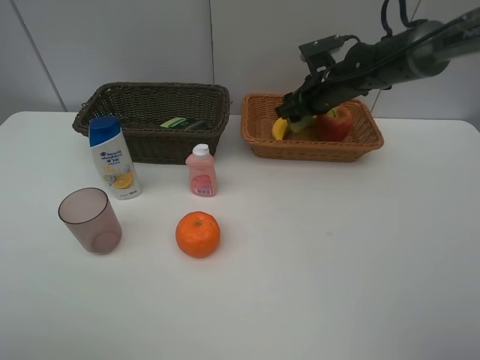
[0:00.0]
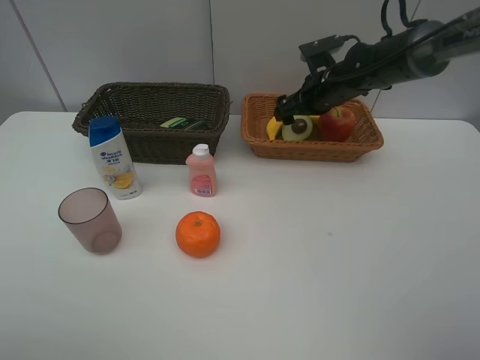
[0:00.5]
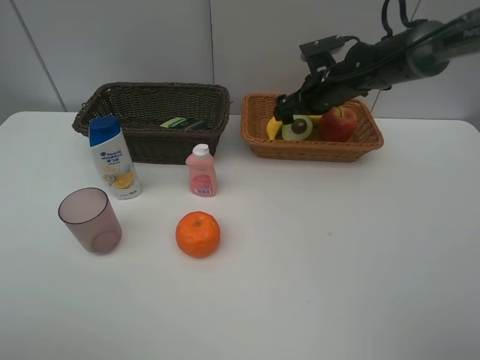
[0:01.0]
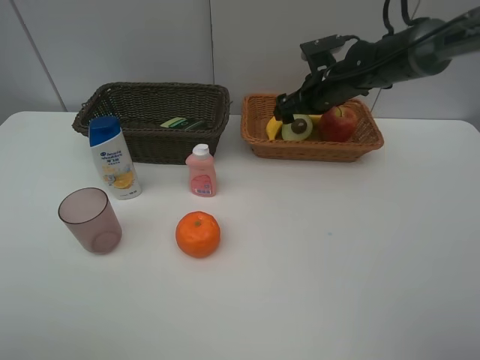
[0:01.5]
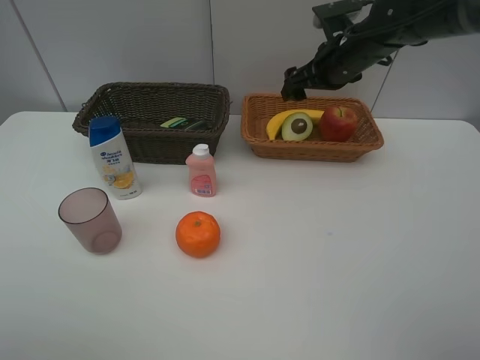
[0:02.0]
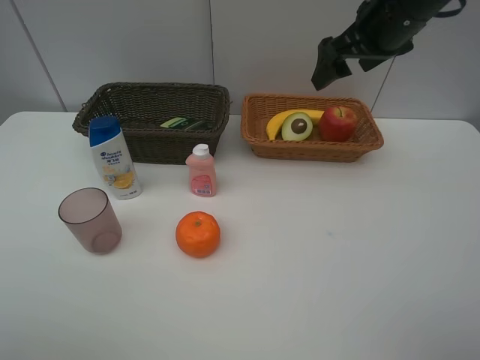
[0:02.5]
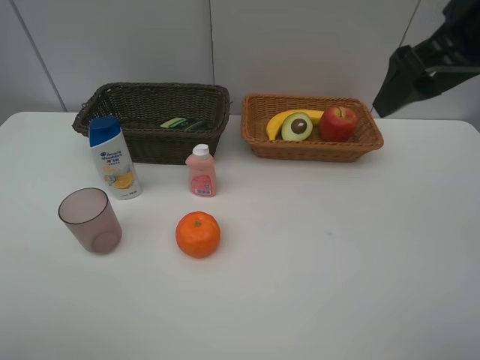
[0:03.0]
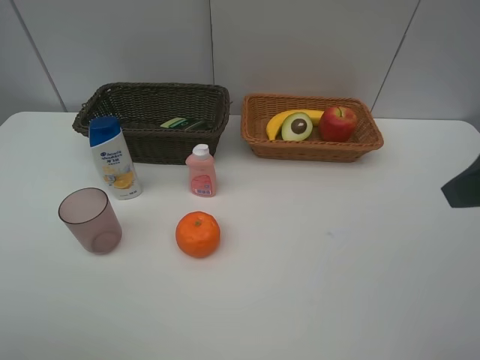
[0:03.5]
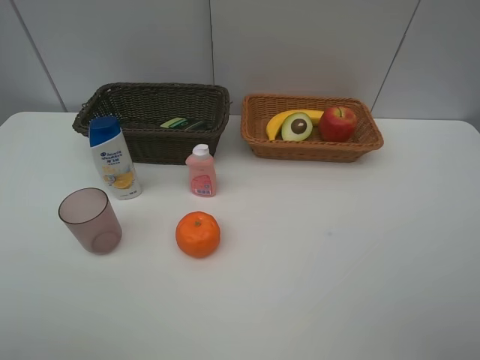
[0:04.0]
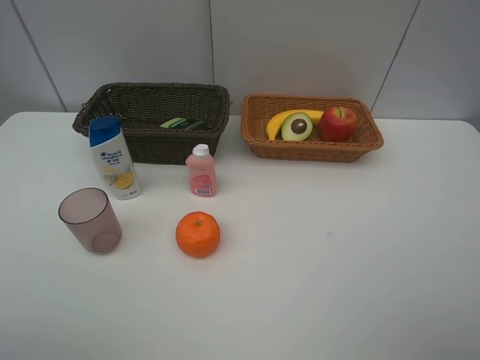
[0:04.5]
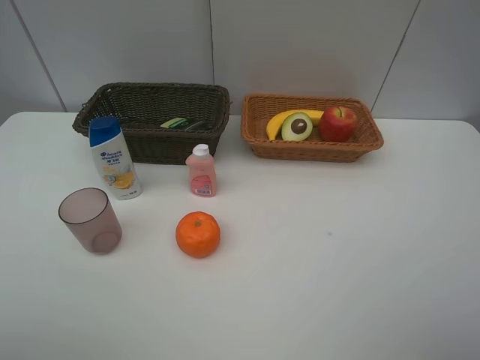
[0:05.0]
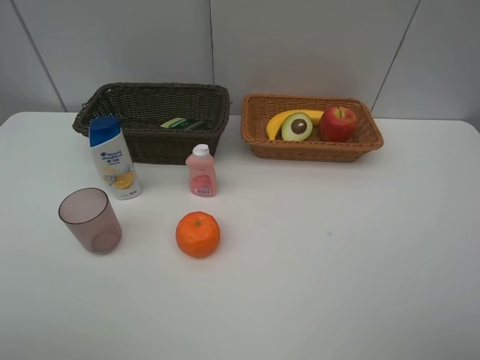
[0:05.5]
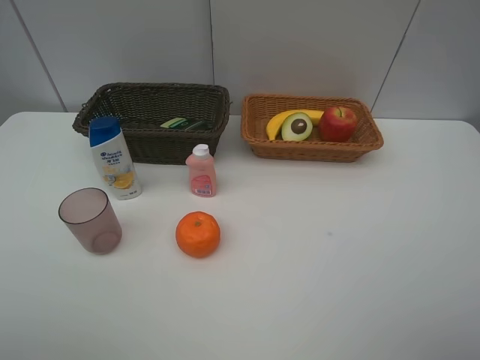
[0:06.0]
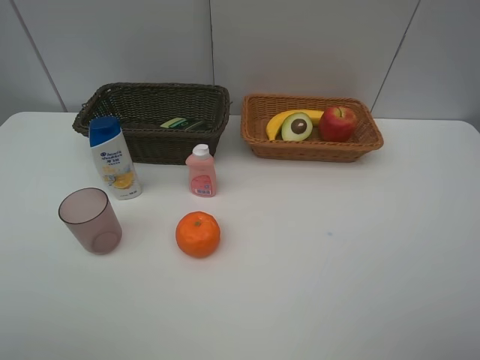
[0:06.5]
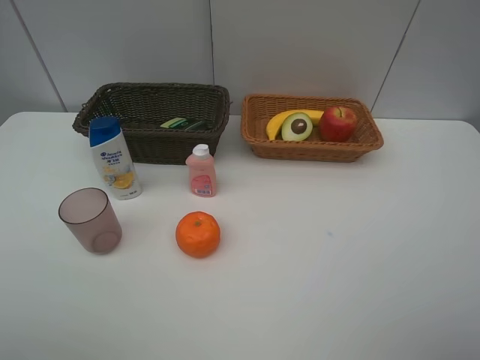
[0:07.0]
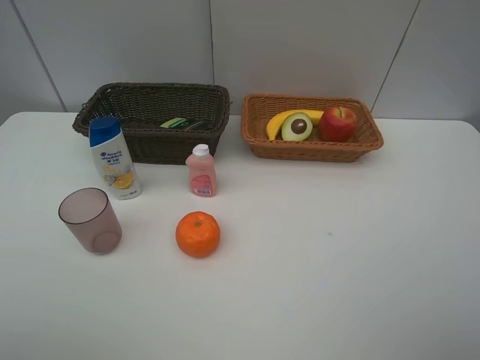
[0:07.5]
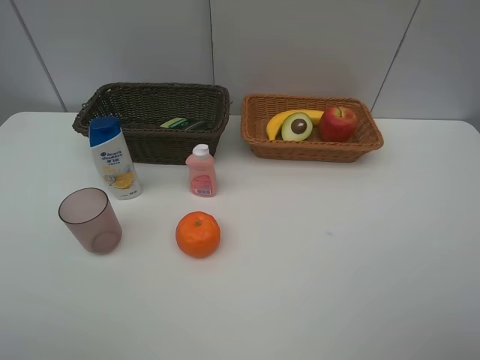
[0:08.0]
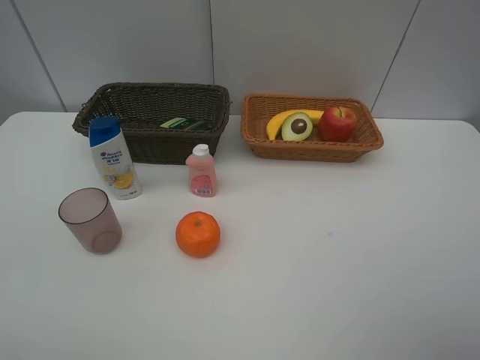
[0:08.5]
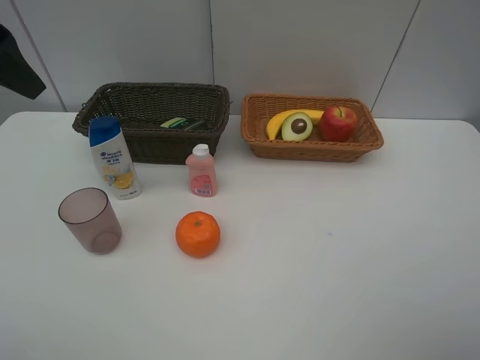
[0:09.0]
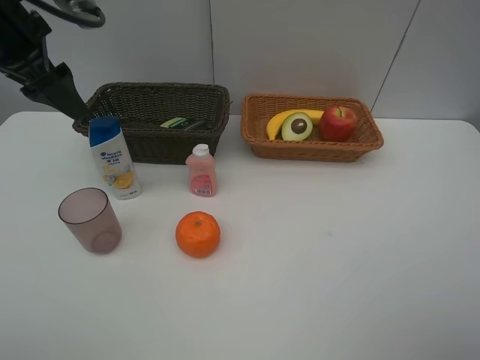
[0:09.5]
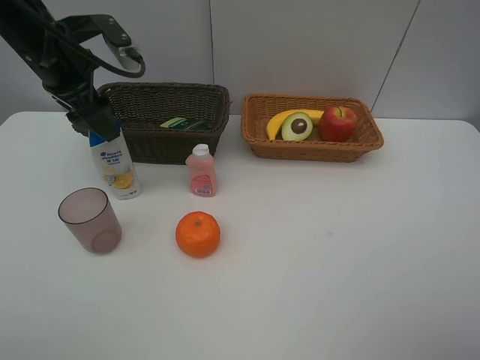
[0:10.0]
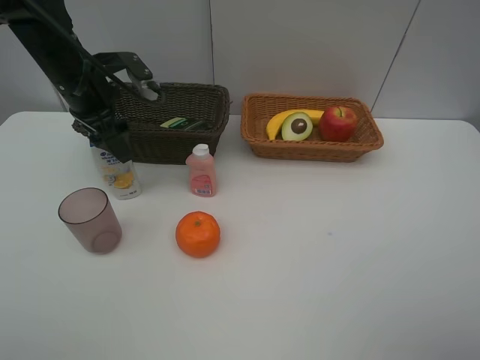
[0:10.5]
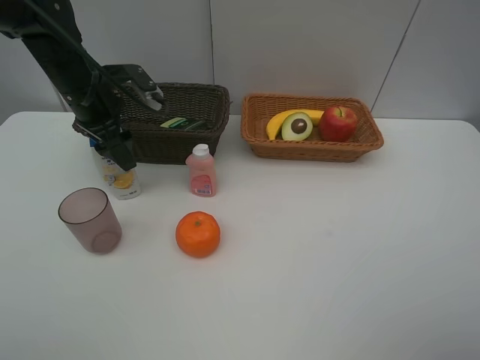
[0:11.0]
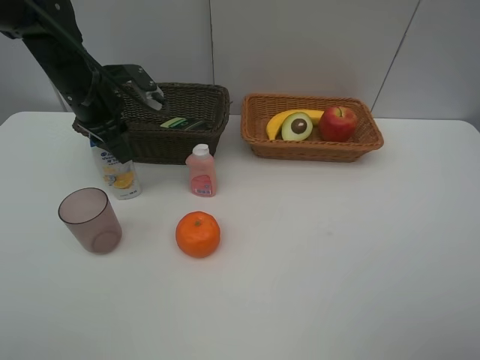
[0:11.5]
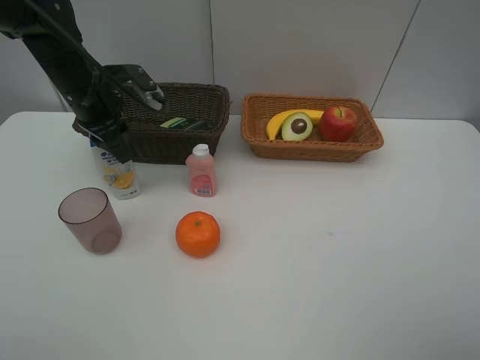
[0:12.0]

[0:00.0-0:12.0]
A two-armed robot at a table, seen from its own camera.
Task of the whole recording: Place multiple objects separately in different baskets.
0:00.0 to 0:02.0: The right gripper heads upward, covering about 10 cm, and opens.
0:02.0 to 0:04.0: The right gripper goes about 35 cm backward.
0:08.0 to 0:10.0: The left gripper moves forward, roughly 30 cm.
0:10.0 to 0:12.0: The left gripper is displaced downward by roughly 5 cm, and closes.

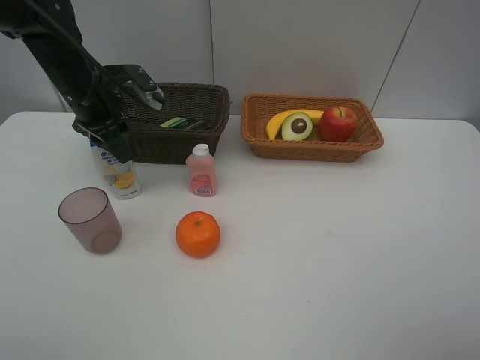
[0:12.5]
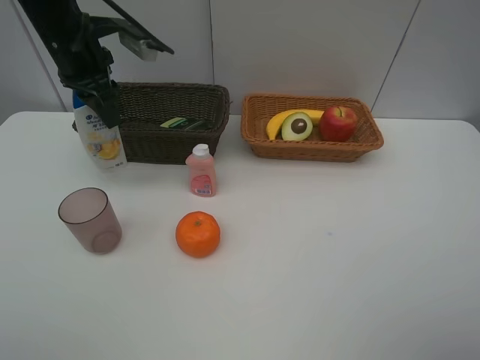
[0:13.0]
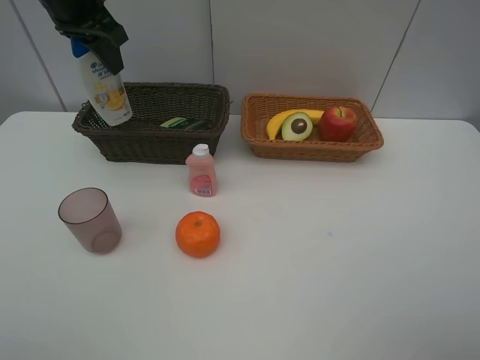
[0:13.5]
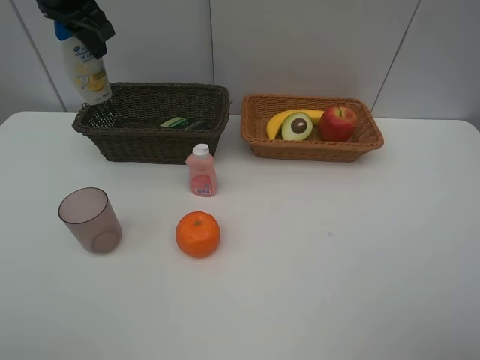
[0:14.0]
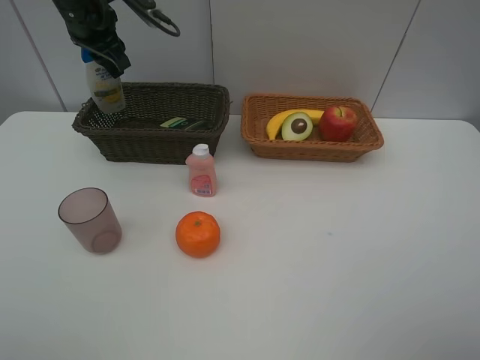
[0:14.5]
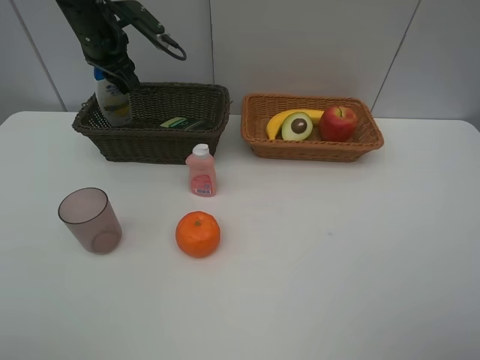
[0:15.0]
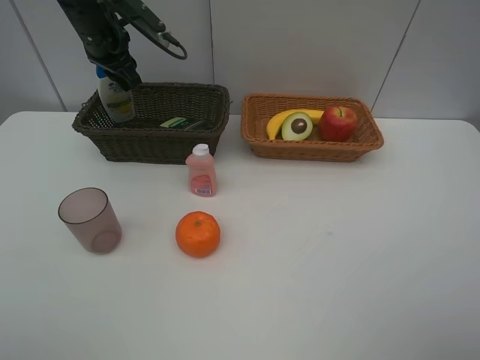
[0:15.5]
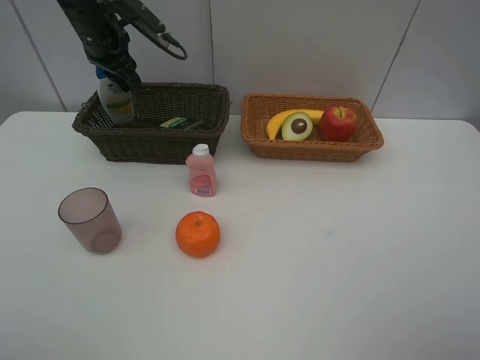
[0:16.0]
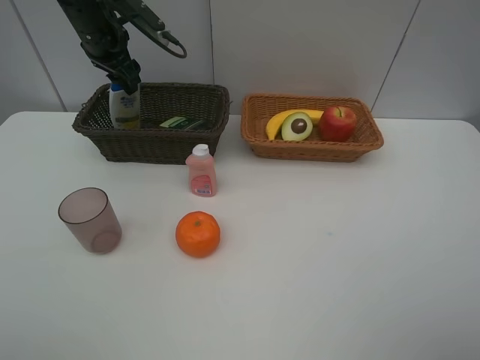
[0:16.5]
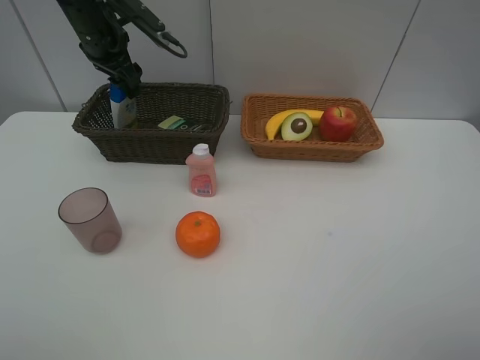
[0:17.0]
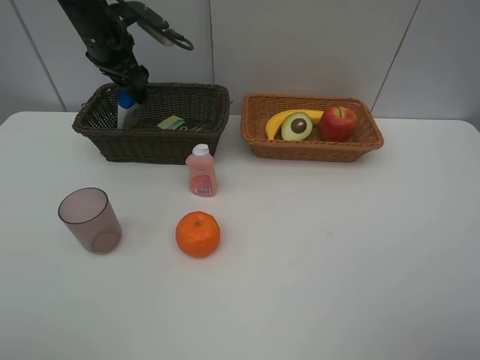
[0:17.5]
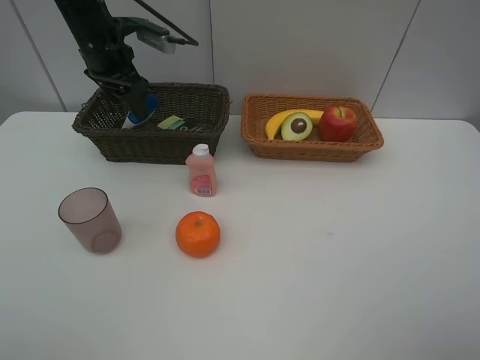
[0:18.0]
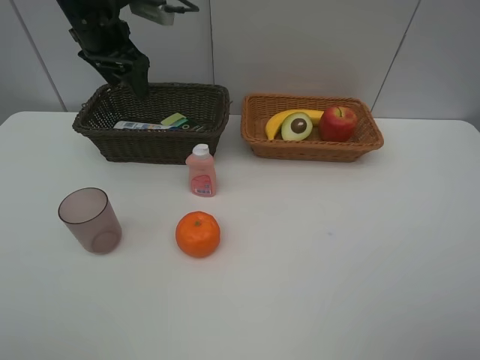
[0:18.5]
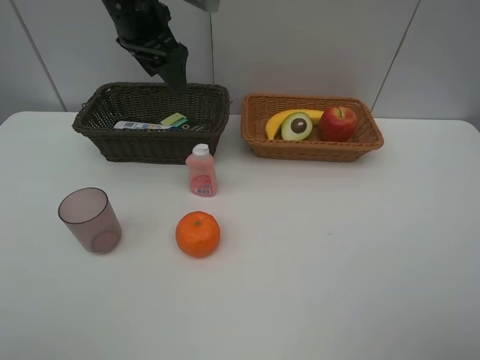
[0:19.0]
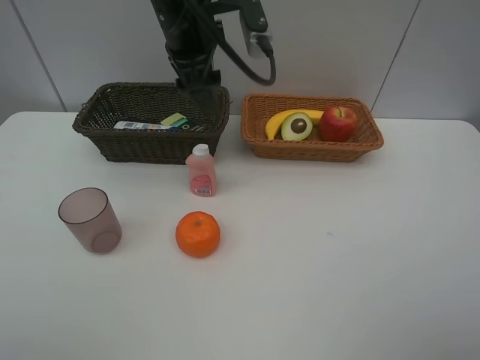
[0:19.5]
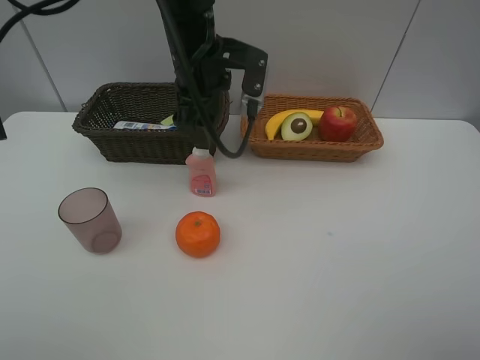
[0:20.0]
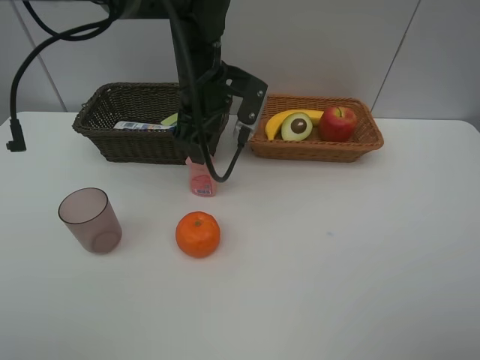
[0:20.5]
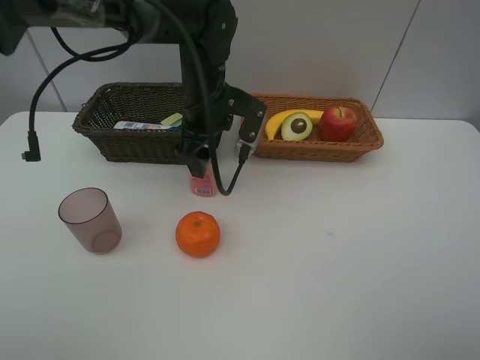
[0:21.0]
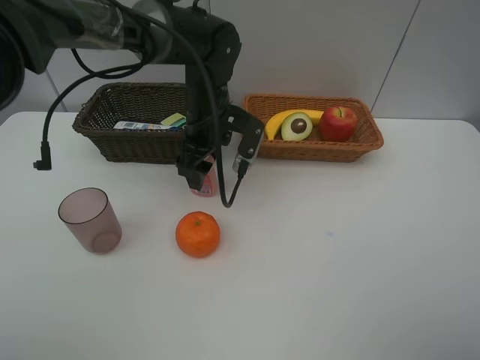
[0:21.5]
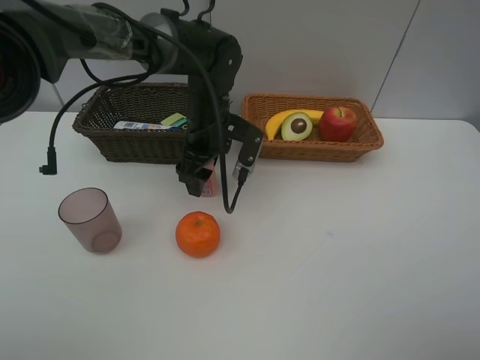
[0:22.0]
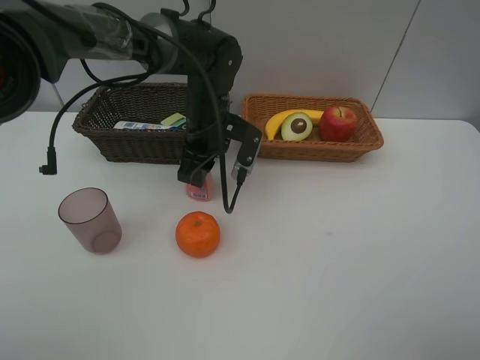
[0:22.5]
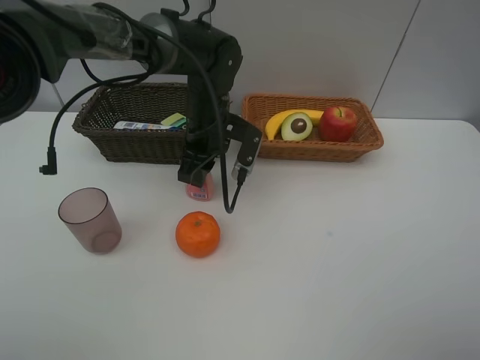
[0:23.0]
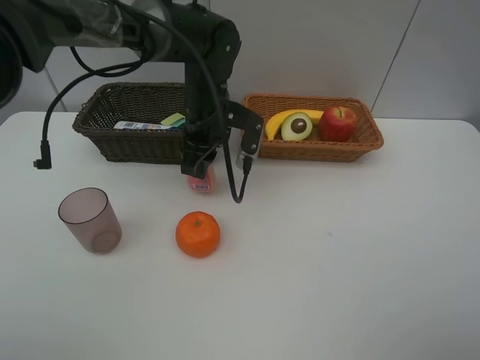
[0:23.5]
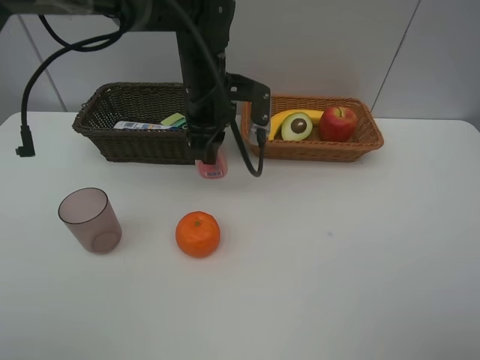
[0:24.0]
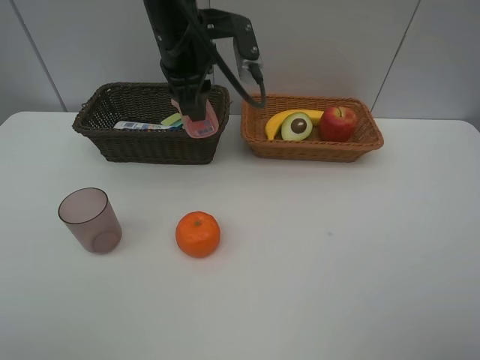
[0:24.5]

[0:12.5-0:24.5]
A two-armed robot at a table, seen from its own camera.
Task of the whole recording: Place multiple objects separately in different baskets.
Step, 0:13.0 to 0:18.0: Place the shampoo in the dark basket with left gripper.
Step, 0:18.5 to 0:23.5: Pick up the laundry detergent with left gripper.
0:12.5 to 0:14.5: The left gripper goes roughly 10 cm forward and upward.
0:14.5 to 0:16.5: The left gripper opens.
0:16.5 to 0:18.5: The left gripper ends up some 5 cm from where it was.
0:18.5 to 0:20.5: The left gripper heads to the right and backward, covering some 15 cm.
0:20.5 to 0:22.5: The left gripper is displaced downward by some 5 cm, and closes.
0:22.5 to 0:24.5: The left gripper travels upward by about 15 cm.

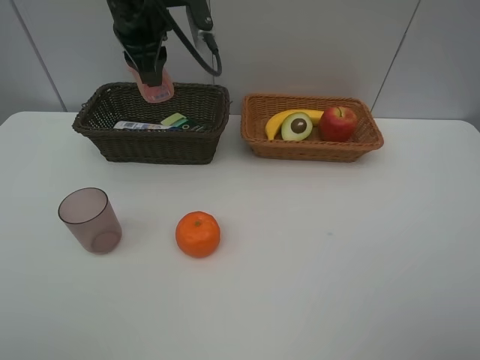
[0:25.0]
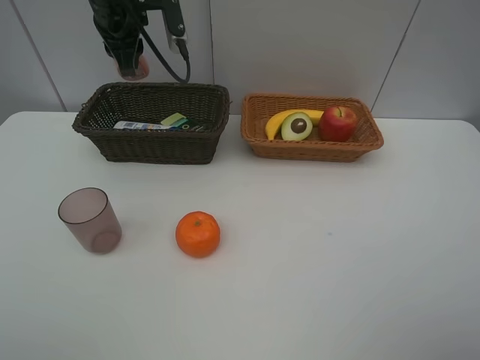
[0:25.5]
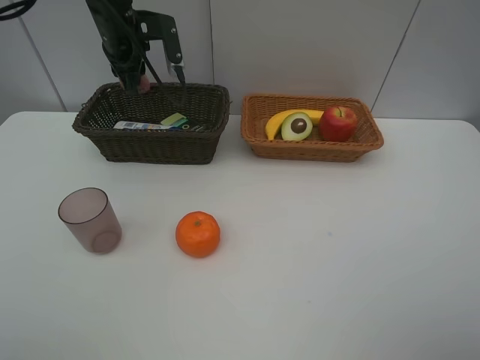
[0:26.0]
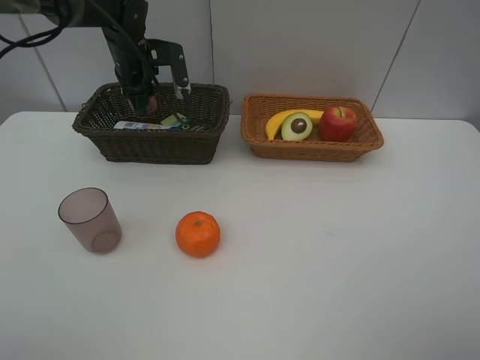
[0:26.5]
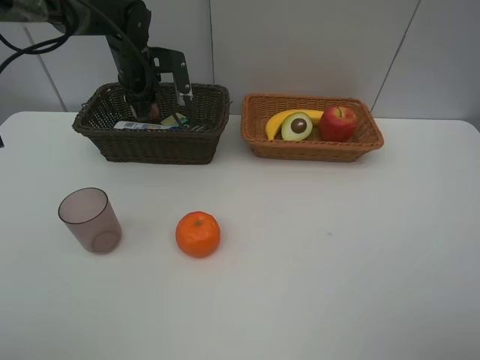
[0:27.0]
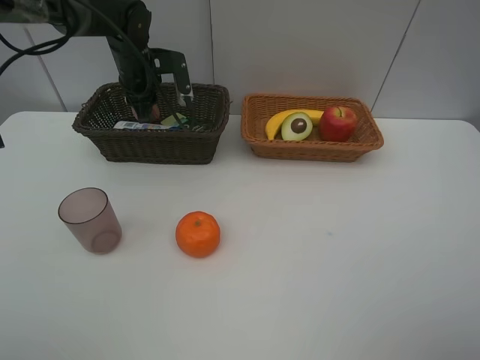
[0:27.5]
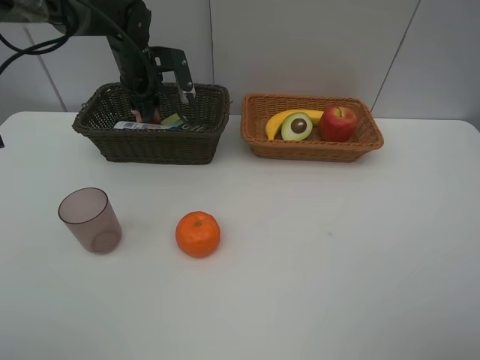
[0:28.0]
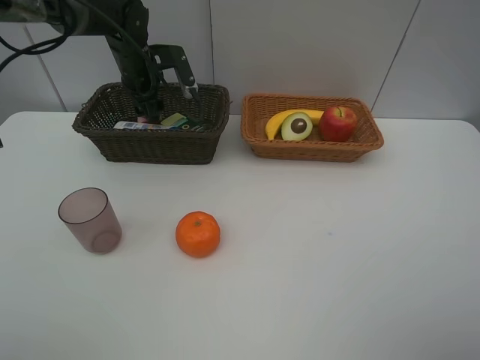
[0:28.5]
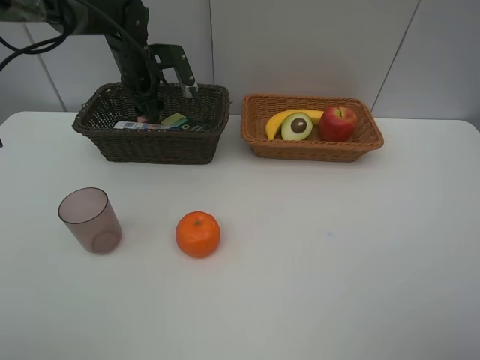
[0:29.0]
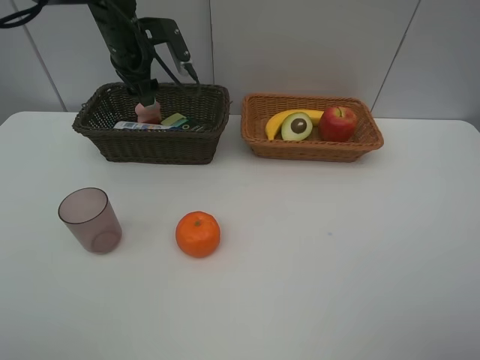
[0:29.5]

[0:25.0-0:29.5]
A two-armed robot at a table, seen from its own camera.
Task of the whole recording: Place multiple objects separately in different baskets.
0:25.0 to 0:27.0: The left gripper is displaced downward and forward by some 15 cm.
0:27.0 to 0:29.5: The left gripper opens its fingers.